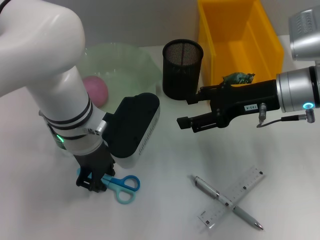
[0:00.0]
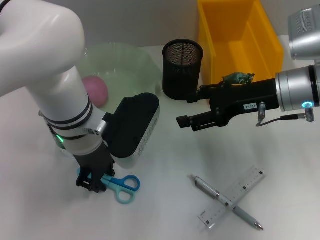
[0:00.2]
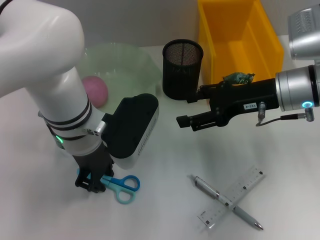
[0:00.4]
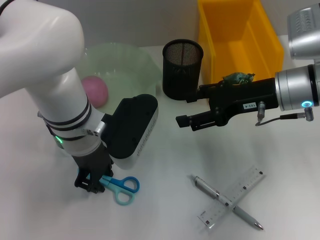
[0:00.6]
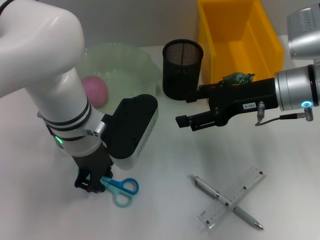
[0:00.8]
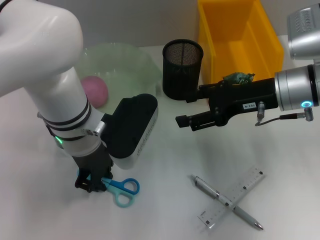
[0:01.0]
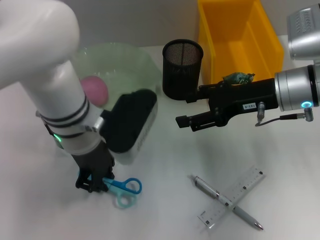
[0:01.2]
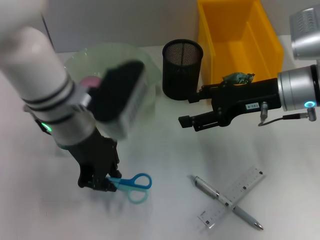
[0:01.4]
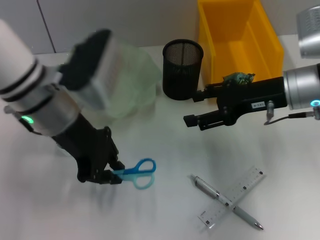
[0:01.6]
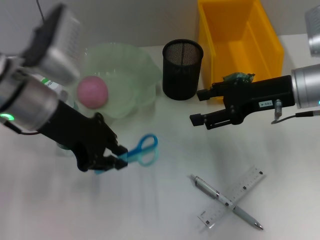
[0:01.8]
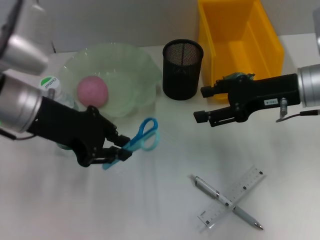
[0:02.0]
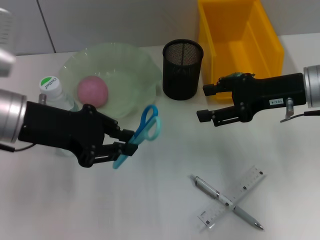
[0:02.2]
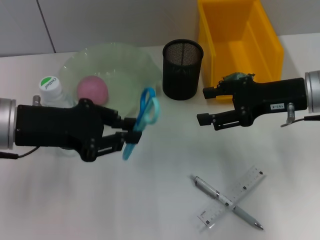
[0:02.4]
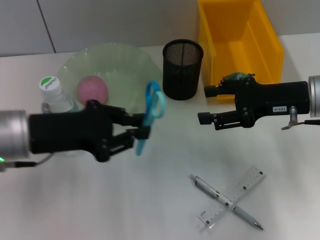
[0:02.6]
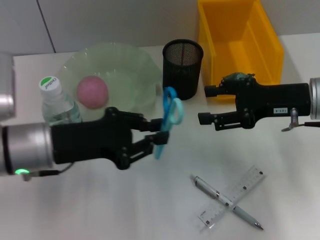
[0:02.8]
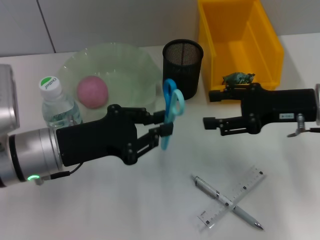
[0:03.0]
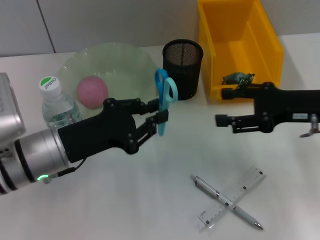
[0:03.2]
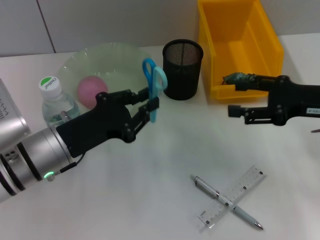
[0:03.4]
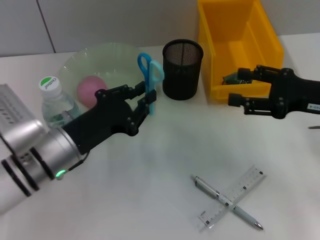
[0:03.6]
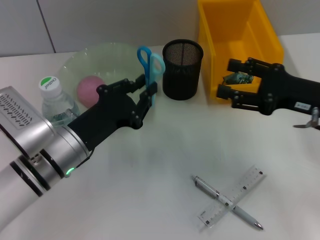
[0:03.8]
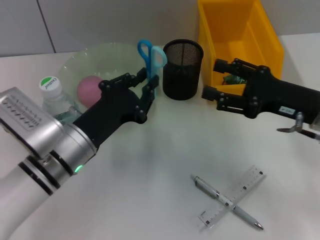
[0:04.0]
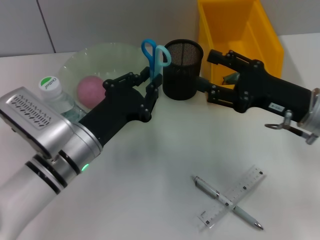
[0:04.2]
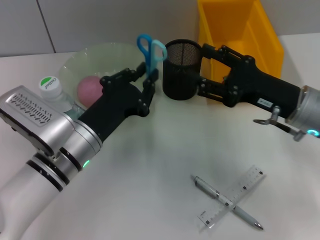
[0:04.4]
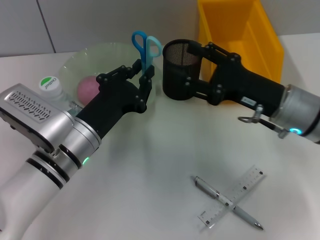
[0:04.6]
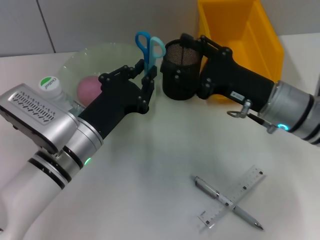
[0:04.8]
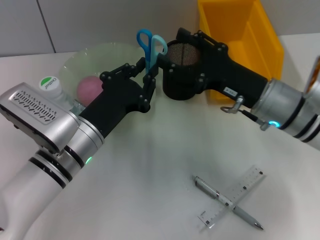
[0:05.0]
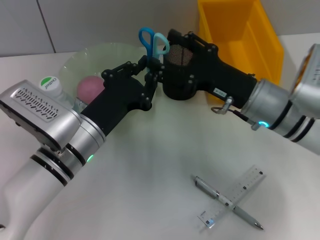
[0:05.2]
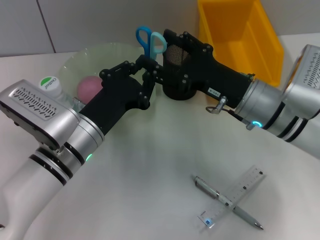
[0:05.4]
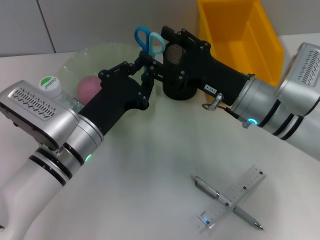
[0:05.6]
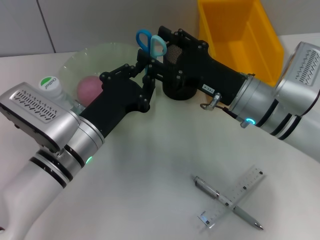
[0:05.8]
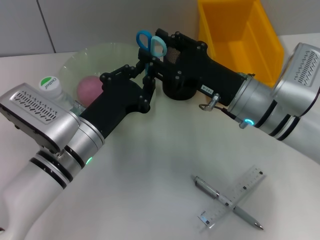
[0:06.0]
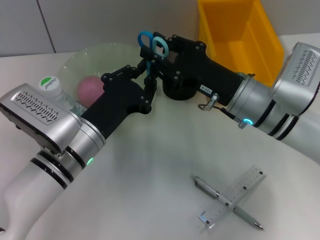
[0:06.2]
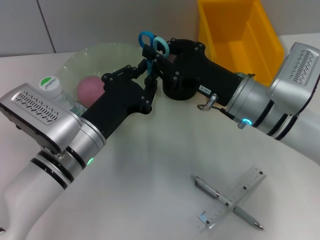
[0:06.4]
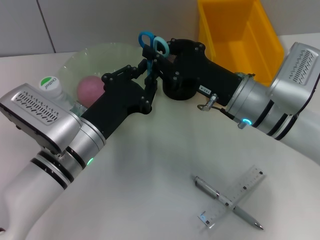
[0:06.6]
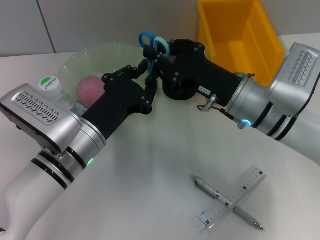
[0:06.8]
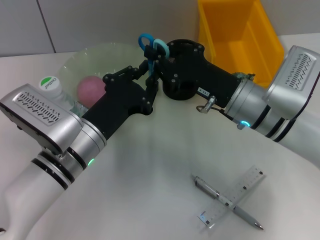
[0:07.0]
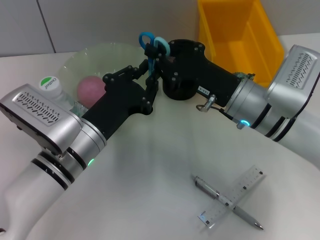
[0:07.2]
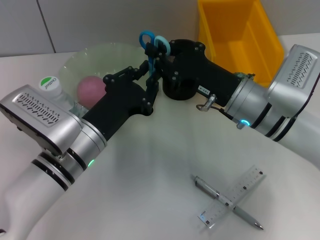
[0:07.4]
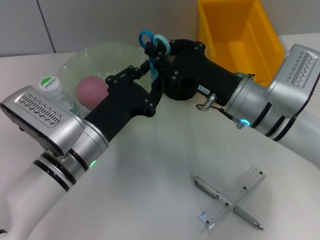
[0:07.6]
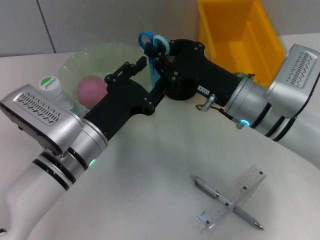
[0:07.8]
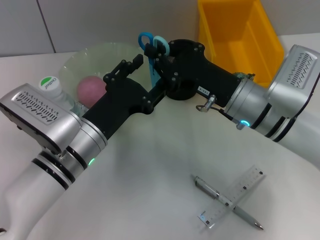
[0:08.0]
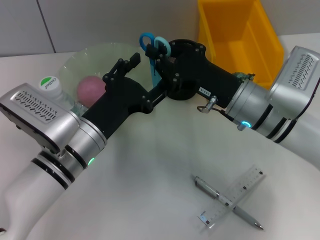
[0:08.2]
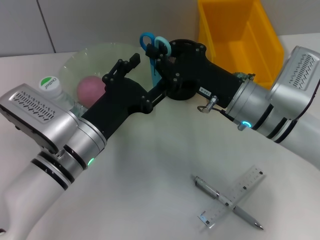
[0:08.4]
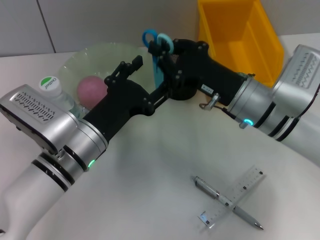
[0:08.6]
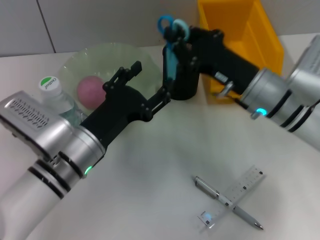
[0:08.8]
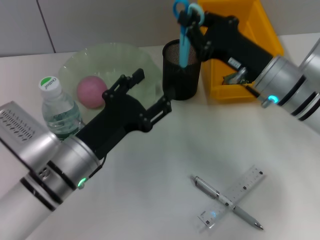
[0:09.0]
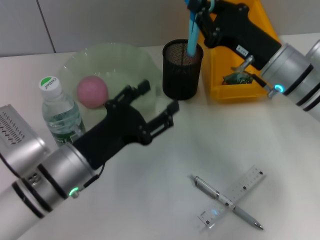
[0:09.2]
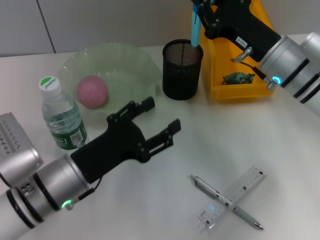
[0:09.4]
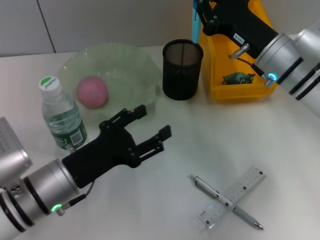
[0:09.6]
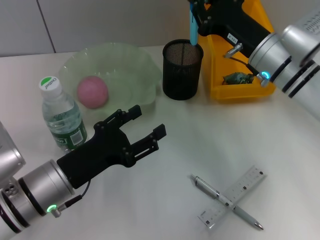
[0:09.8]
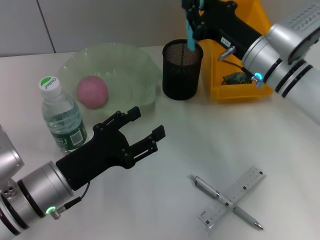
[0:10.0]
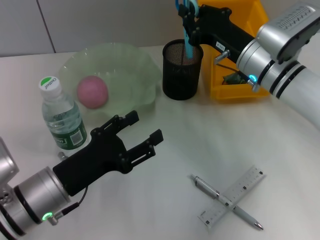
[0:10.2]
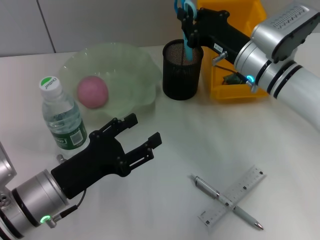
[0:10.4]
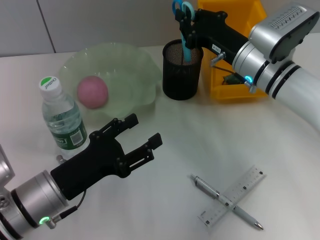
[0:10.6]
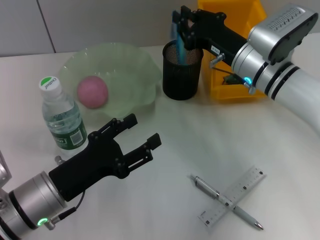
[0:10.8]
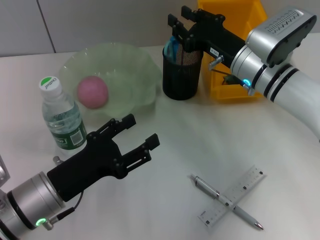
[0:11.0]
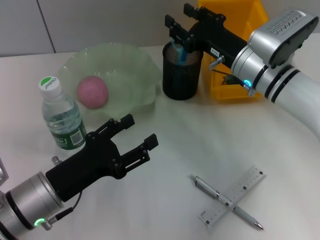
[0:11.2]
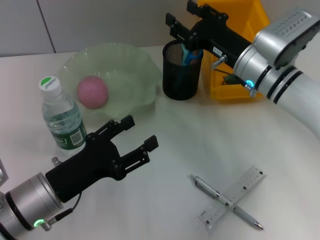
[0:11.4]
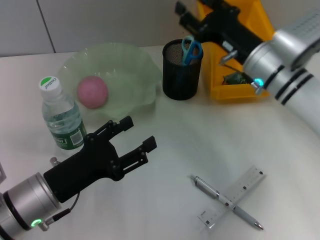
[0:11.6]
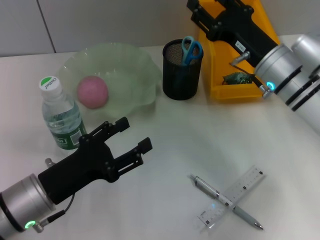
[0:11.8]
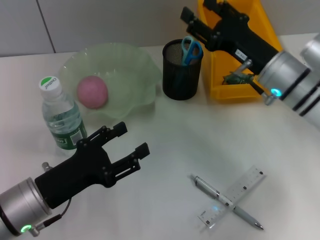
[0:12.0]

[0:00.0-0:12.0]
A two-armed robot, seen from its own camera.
Step, 0:01.0 to 0:07.2: Pass the blue scissors from the left hand to the right hand.
Step, 0:07.4 to 0:11.2: Place the blue scissors into the pen holder with the right hand.
0:00.0 to 0:01.6: The left gripper shifts by roughly 5 cm.
0:01.6 to 0:03.0: The left gripper moves downward and backward, roughly 10 cm, while the right gripper ends up some 5 cm from where it was.
0:03.0 to 0:04.4: The left gripper shifts by approximately 5 cm. Meanwhile the right gripper shifts by some 5 cm.
0:04.4 to 0:06.0: The right gripper travels to the left by about 5 cm.
0:06.0 to 0:07.6: The right gripper closes up.
0:07.6 to 0:09.0: The left gripper opens up.
0:09.0 to 0:10.4: The left gripper moves some 5 cm.
0:10.4 to 0:12.0: The right gripper opens up.

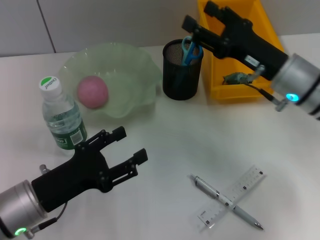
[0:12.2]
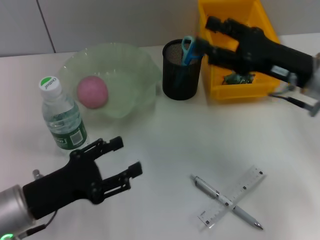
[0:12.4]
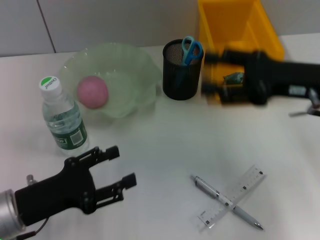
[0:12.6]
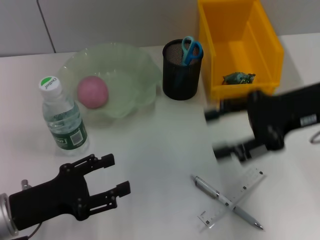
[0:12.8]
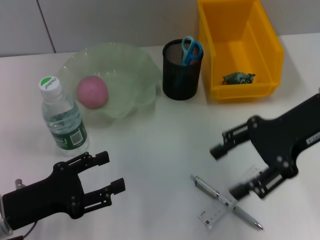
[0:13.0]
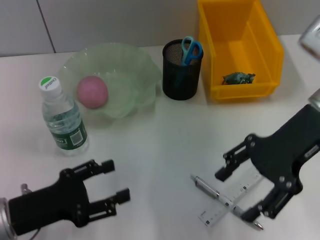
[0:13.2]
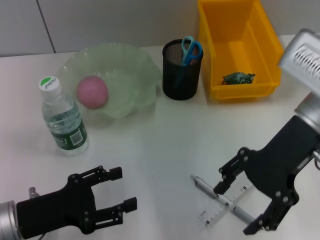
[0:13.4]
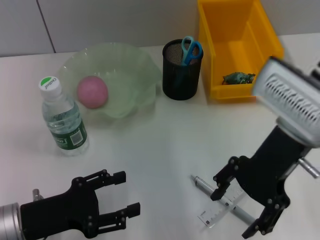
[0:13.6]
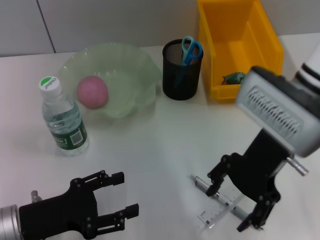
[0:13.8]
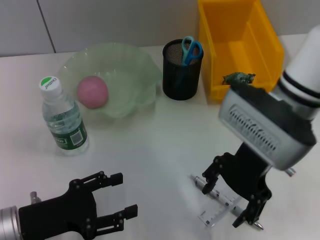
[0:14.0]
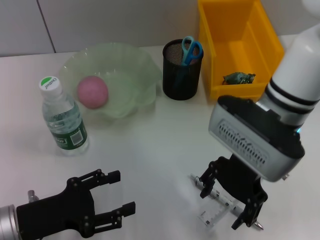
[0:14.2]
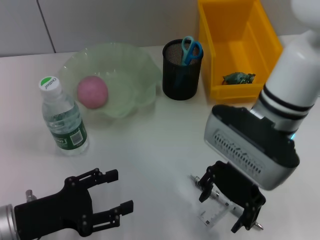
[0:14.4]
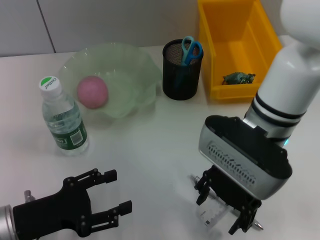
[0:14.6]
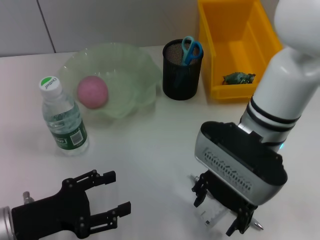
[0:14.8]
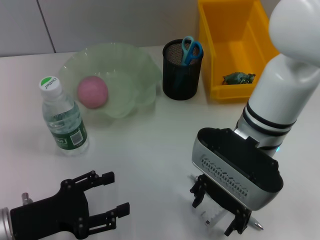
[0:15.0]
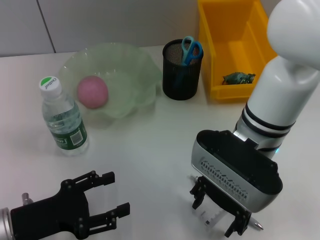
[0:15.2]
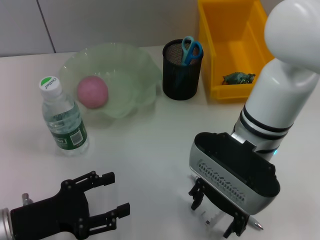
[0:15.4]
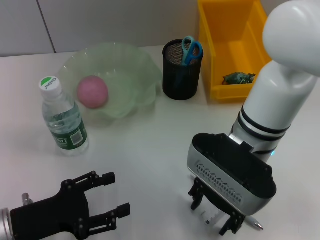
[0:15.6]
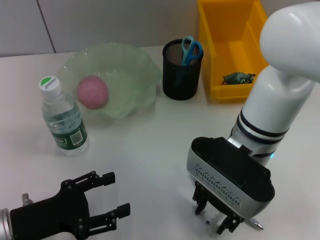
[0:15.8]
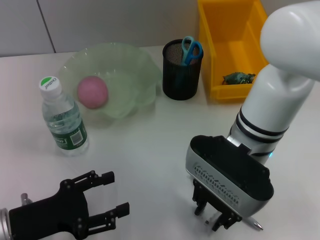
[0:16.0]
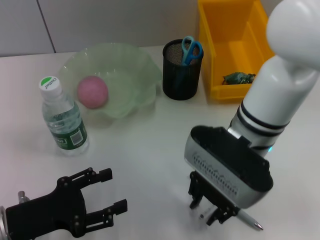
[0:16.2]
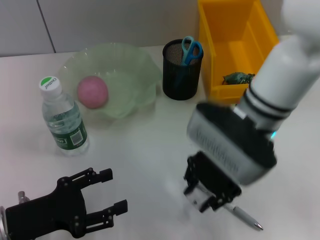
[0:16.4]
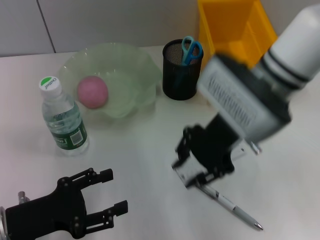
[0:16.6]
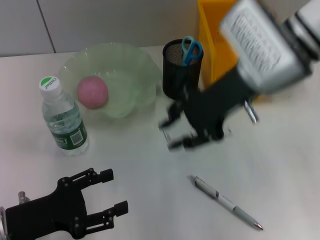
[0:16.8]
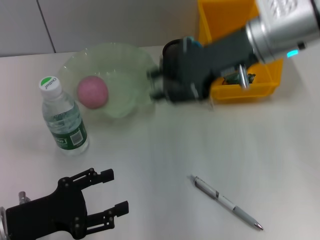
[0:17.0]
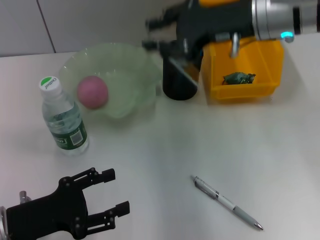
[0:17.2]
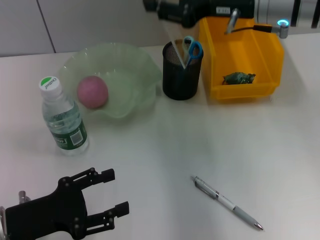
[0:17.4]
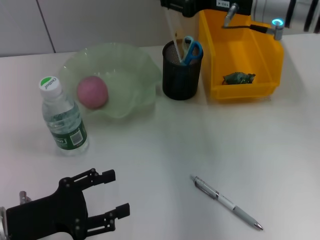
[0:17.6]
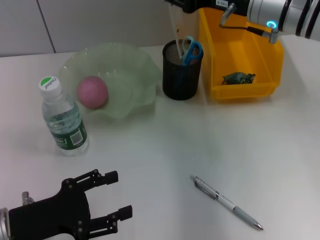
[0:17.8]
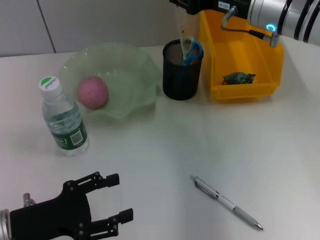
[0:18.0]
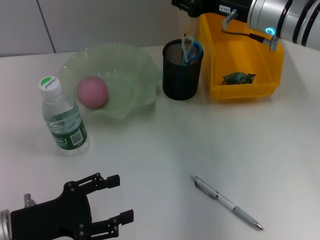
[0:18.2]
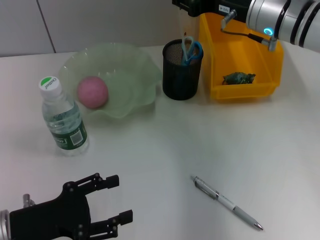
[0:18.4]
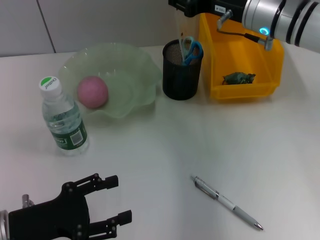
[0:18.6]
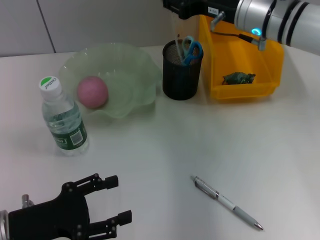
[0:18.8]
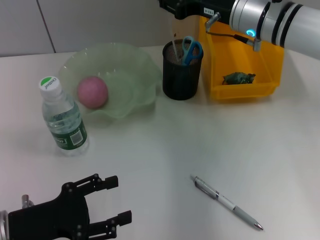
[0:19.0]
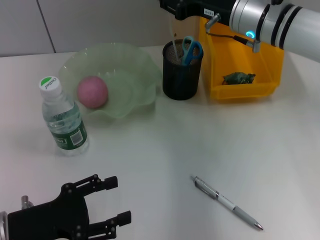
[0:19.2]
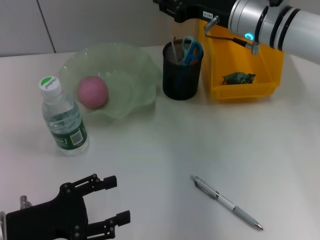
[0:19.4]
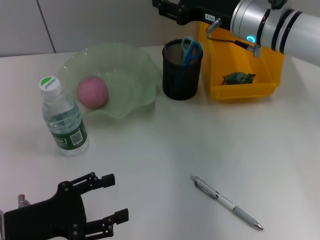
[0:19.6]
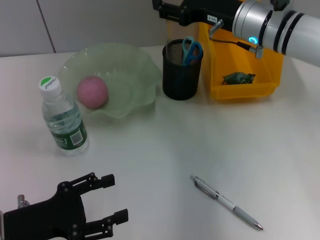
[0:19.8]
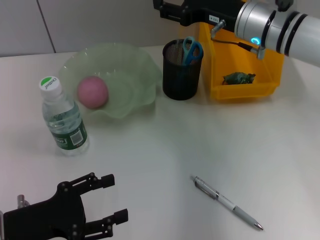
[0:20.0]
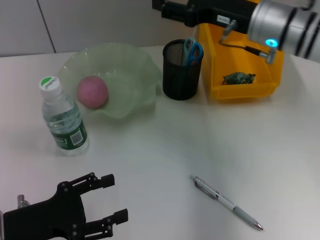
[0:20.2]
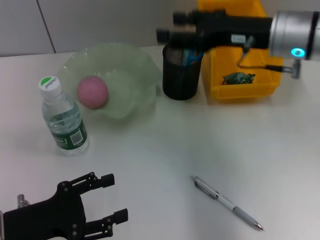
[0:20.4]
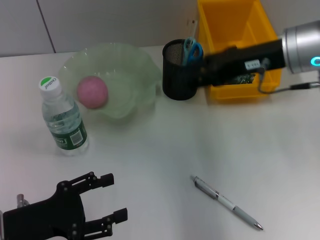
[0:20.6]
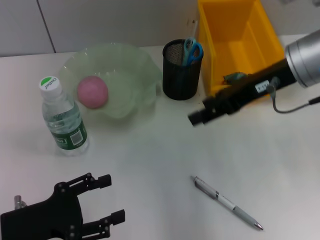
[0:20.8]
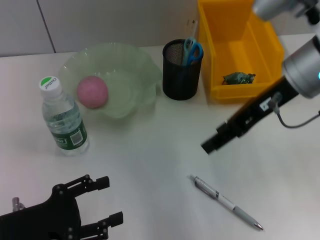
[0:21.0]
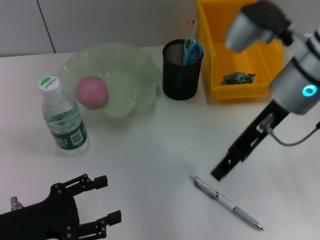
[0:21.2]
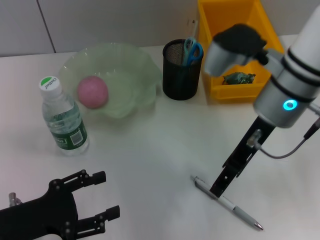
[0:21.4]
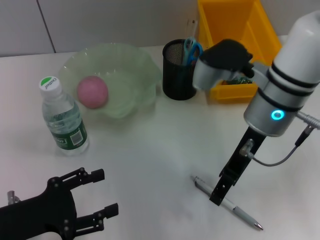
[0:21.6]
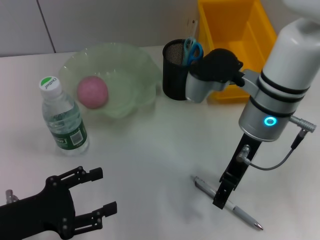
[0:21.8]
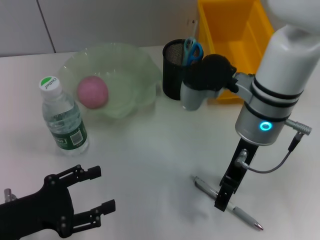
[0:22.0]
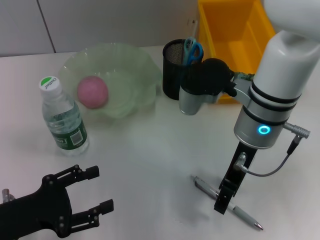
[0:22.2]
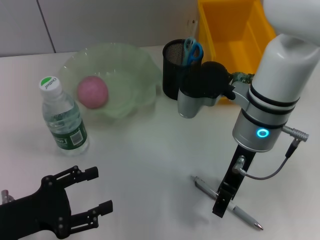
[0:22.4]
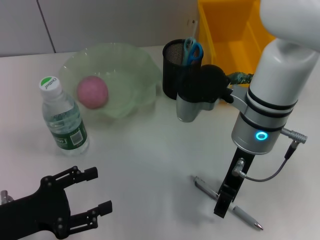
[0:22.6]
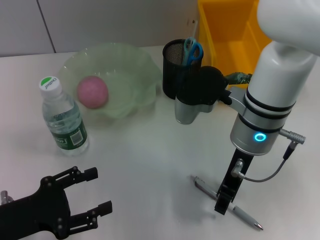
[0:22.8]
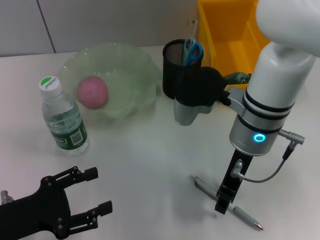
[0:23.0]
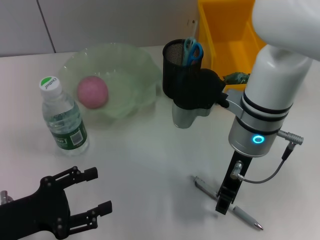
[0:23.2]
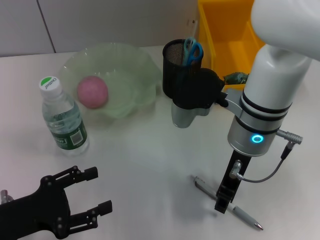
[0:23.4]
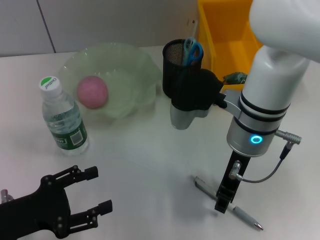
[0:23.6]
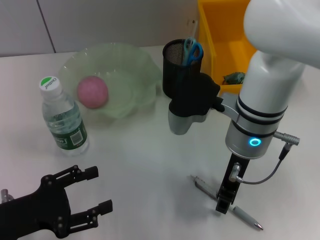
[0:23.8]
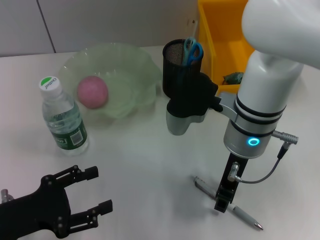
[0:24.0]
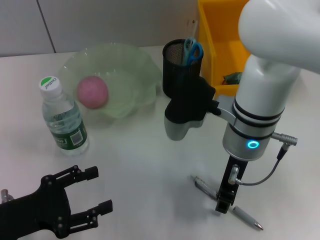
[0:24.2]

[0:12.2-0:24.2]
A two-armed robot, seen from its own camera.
Step, 0:12.2 to 0:15.8: Grab the ruler with the right hand.
Step, 0:16.0 to 0:20.0: Place the ruler into the pen holder with the right hand.
0:12.2 to 0:13.8: The right gripper goes approximately 10 cm upward and to the left.
0:13.8 to 0:15.2: The right gripper moves to the left, about 5 cm.
0:15.2 to 0:16.6: The right gripper is displaced upward by roughly 5 cm, and closes up.
0:16.6 to 0:18.2: The right gripper shifts some 10 cm forward and to the right.
0:18.2 to 0:19.8: The grippers make only small movements.
0:19.8 to 0:21.2: The right gripper travels backward by some 10 cm.
0:21.2 to 0:22.6: The right gripper heads downward and to the left, covering roughly 10 cm.
0:22.6 to 0:24.2: The right gripper closes its fingers.
